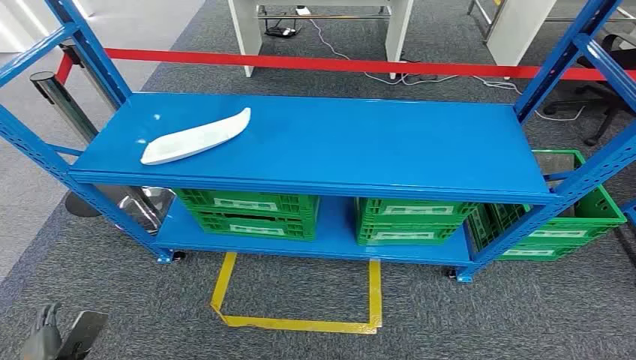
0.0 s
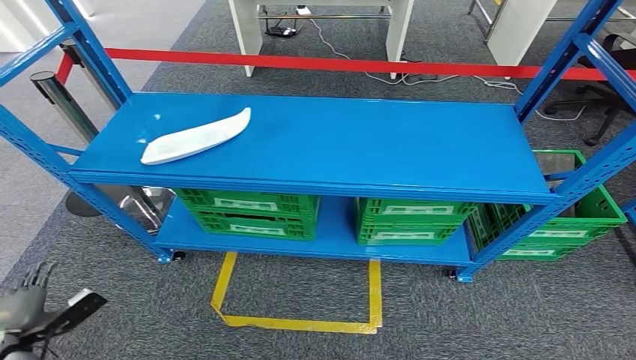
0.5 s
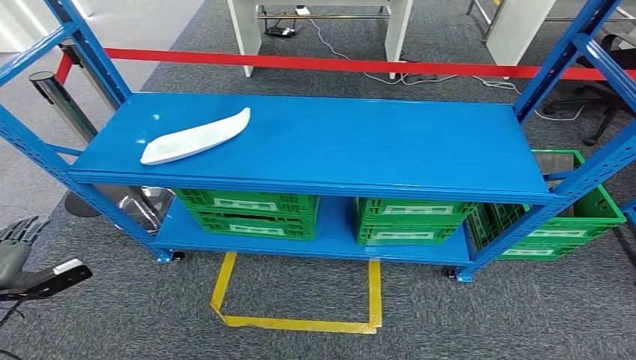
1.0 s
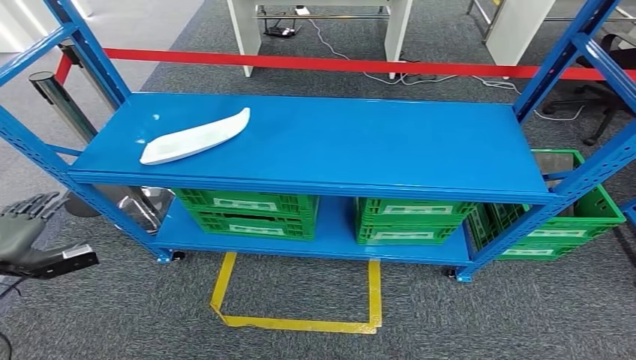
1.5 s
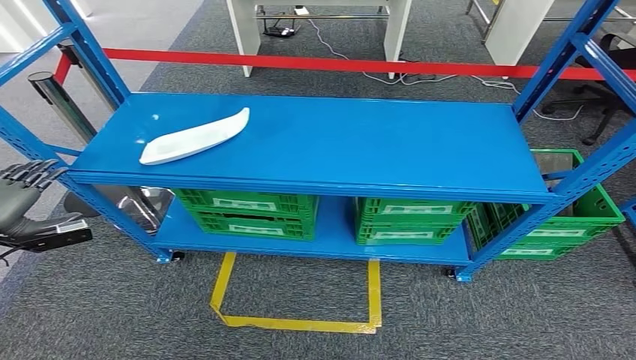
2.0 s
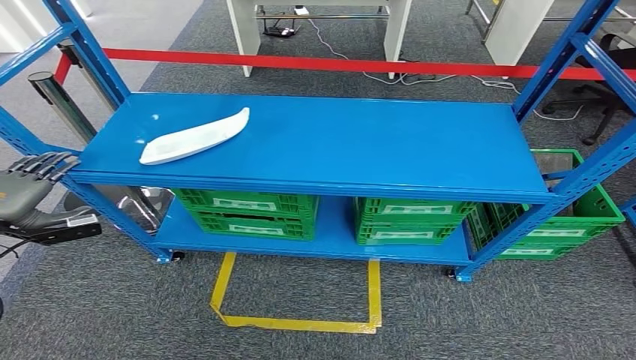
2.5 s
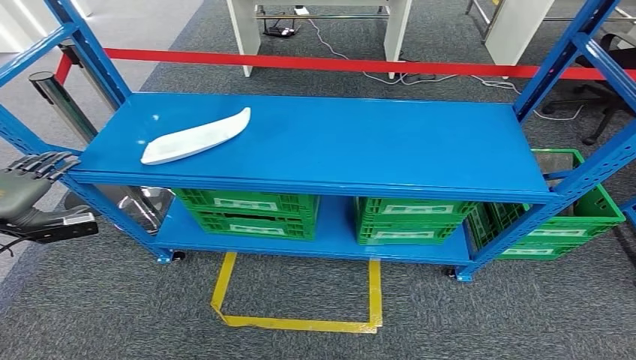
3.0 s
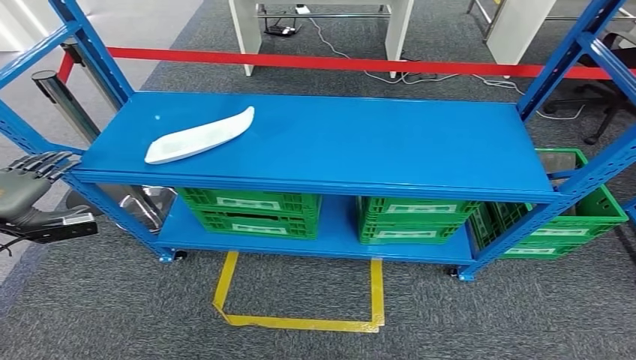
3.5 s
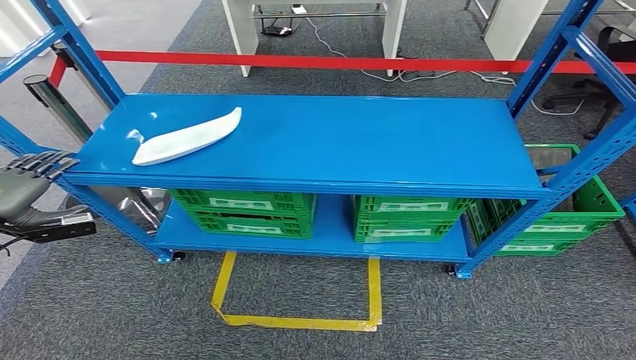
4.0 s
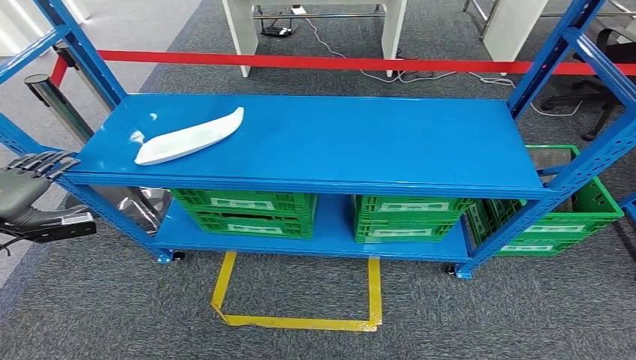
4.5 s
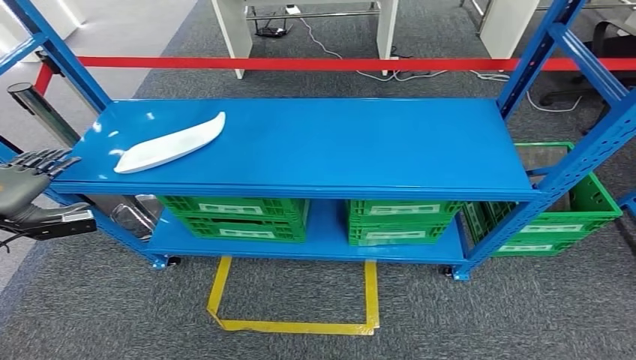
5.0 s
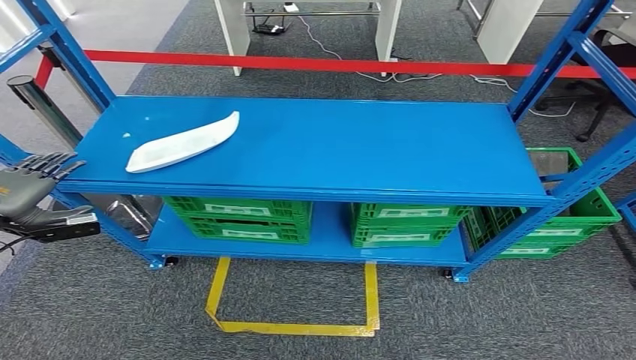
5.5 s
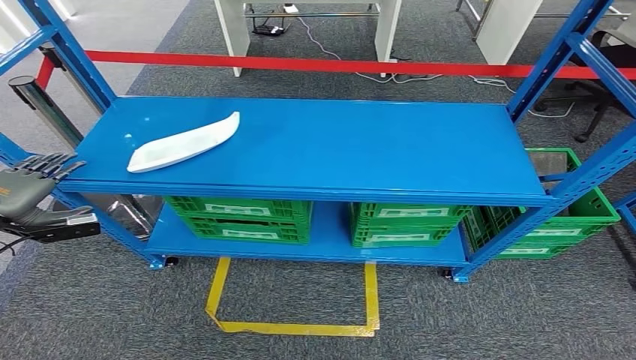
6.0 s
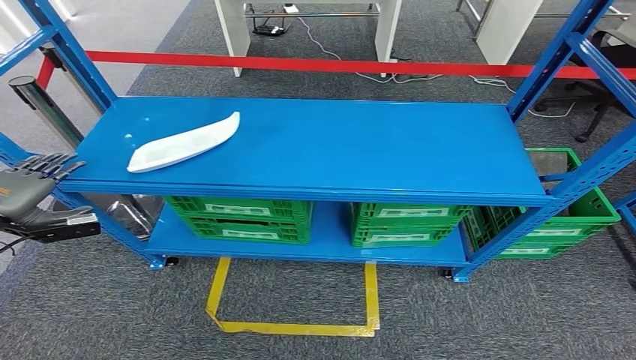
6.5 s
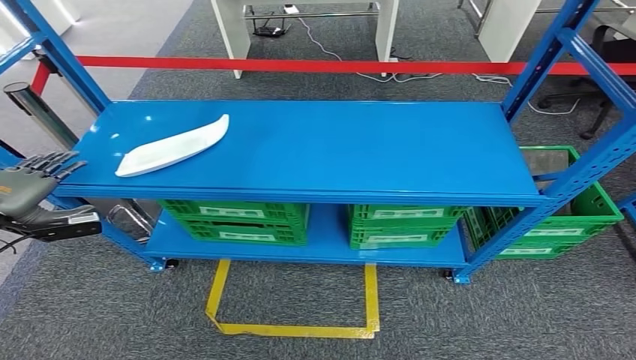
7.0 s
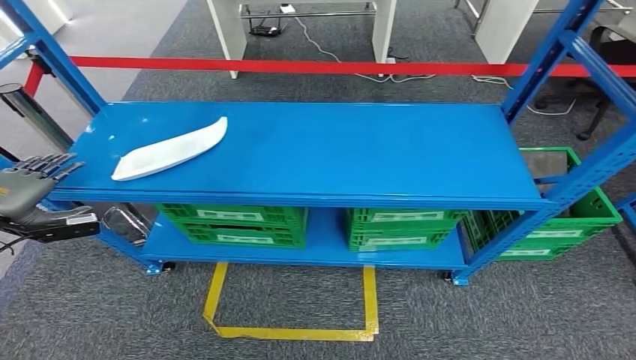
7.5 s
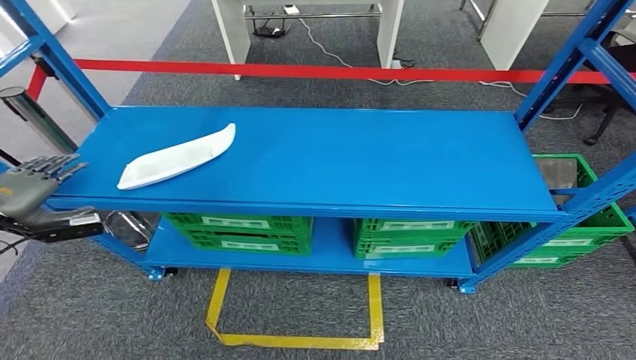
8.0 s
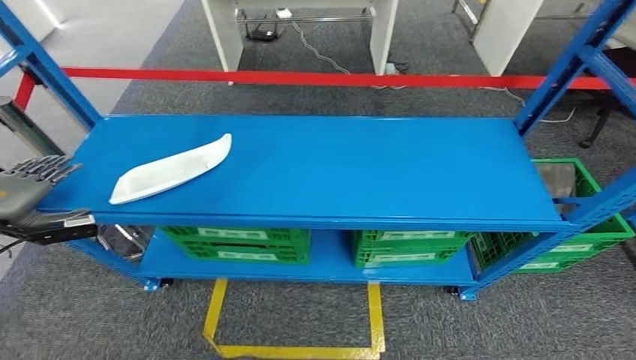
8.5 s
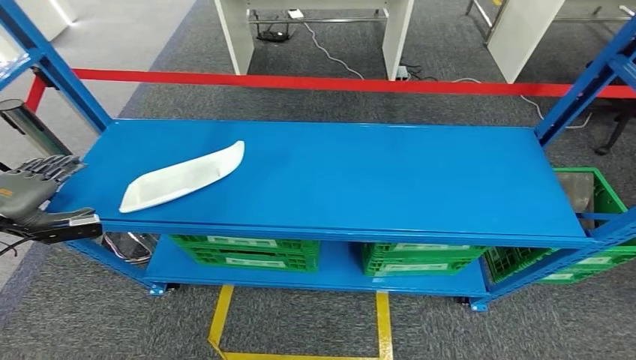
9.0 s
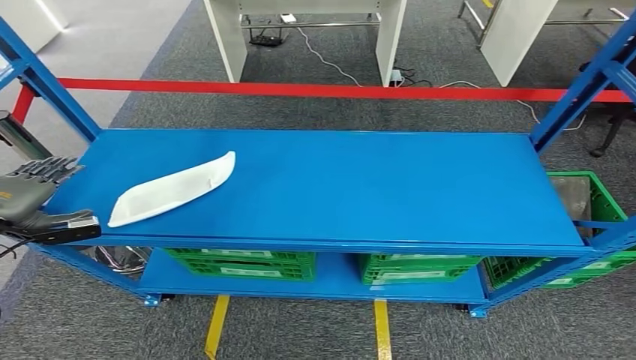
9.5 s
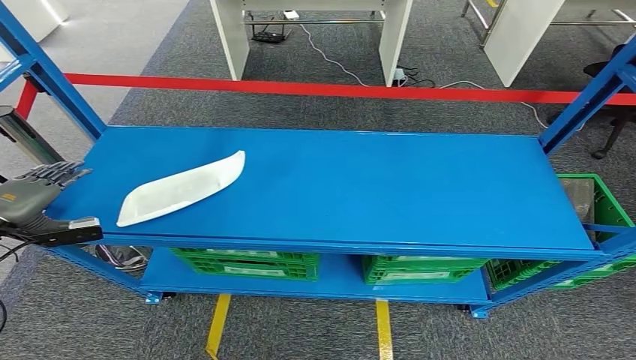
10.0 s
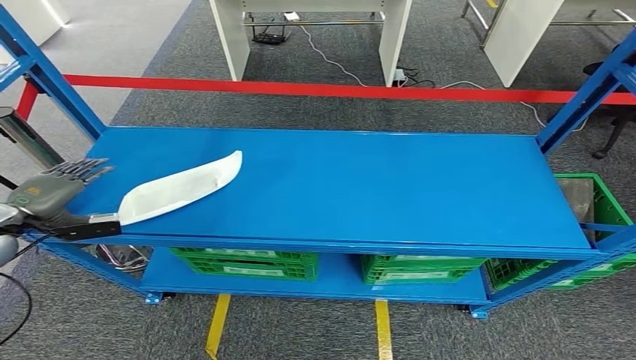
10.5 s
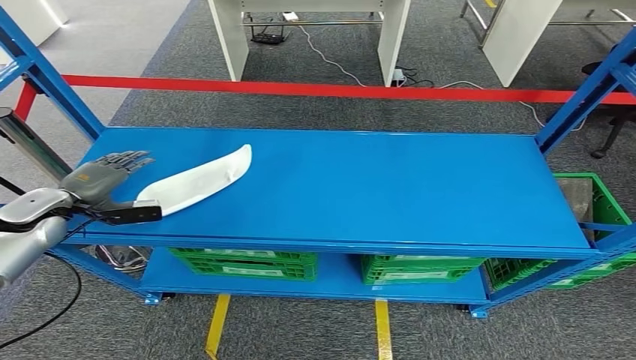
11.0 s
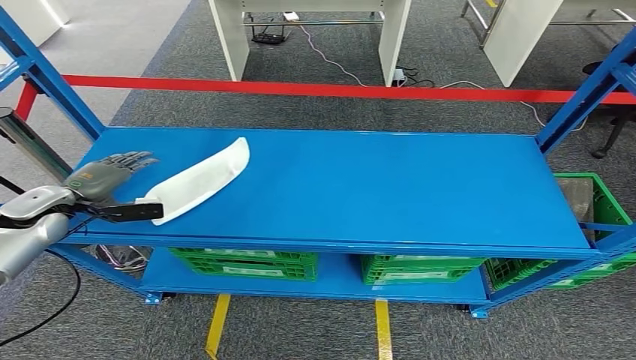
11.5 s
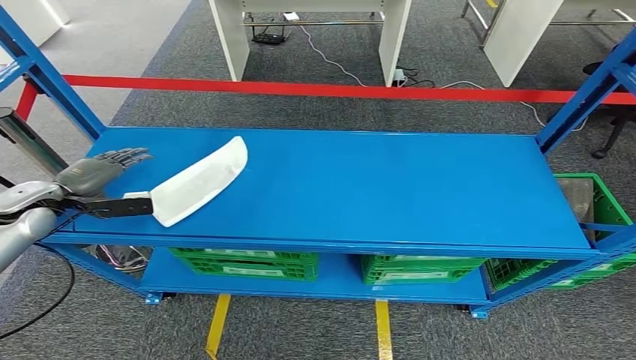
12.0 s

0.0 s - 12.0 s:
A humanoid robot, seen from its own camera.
2.0 s - 4.0 s: The hands make only small movements.
10.0 s - 12.0 s: The left hand is displaced forward and to the right by about 10 cm.

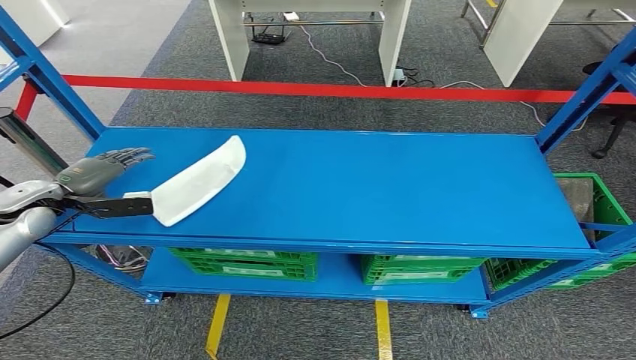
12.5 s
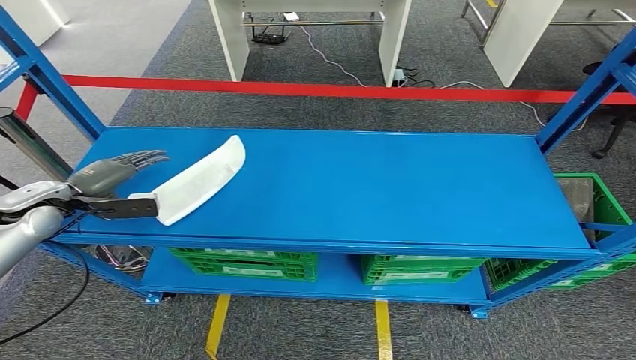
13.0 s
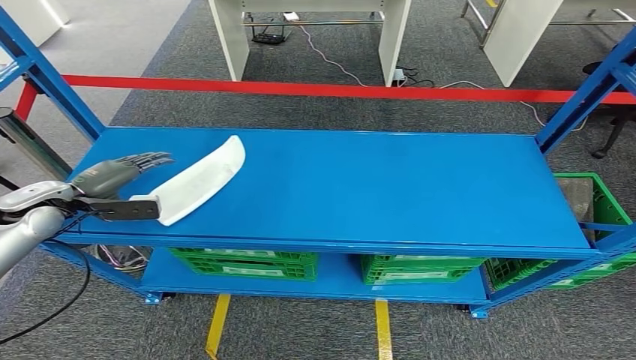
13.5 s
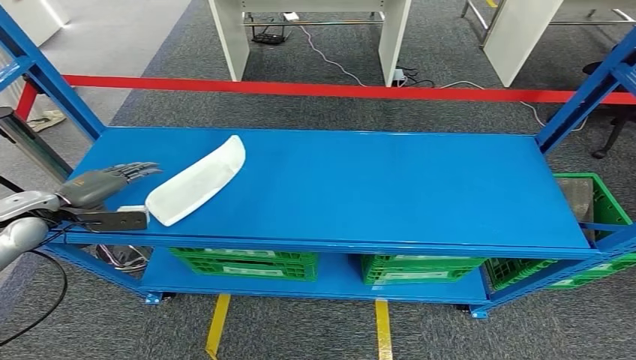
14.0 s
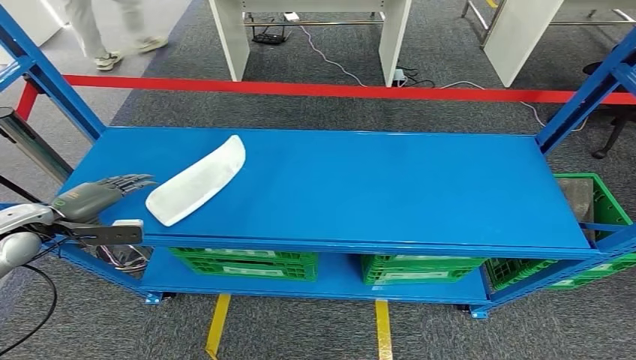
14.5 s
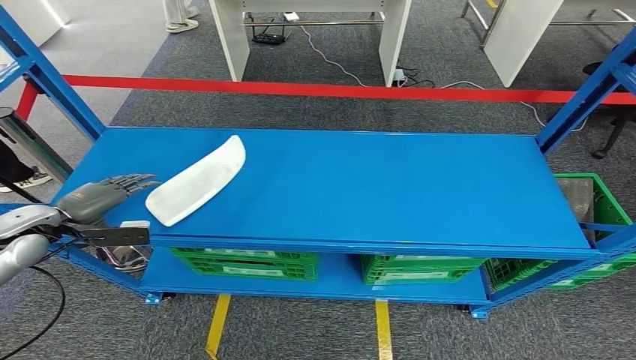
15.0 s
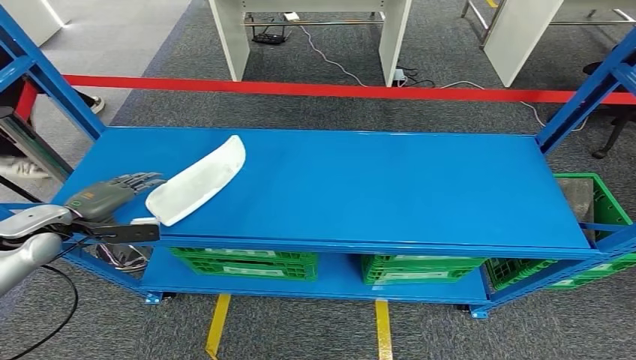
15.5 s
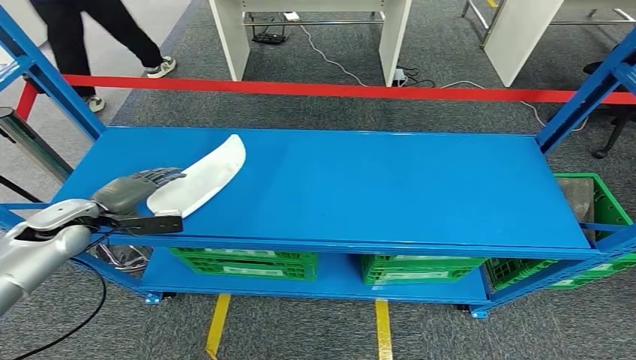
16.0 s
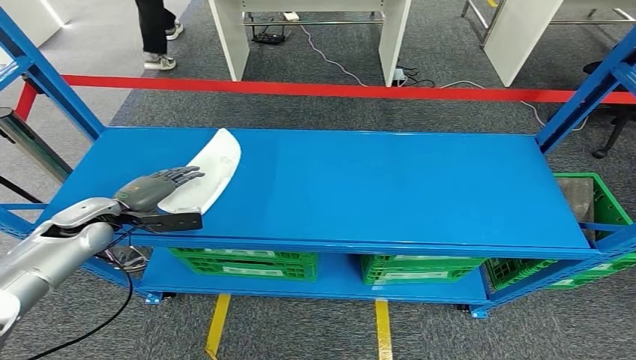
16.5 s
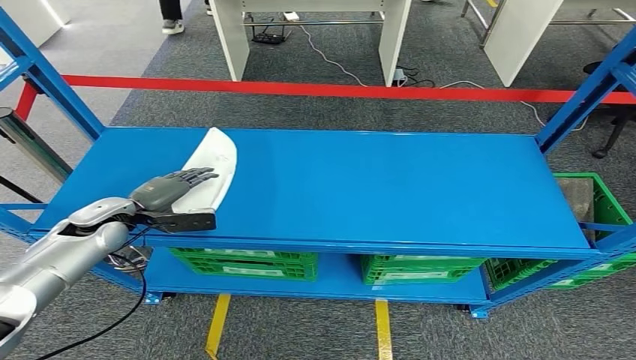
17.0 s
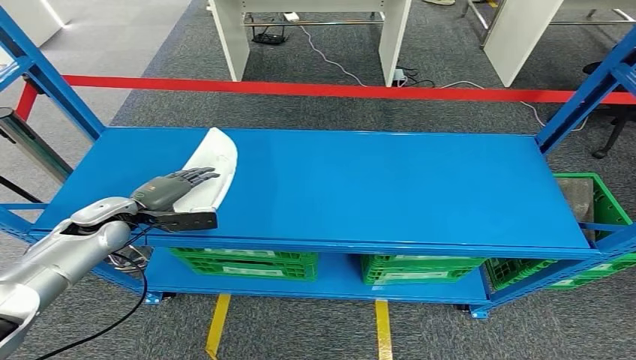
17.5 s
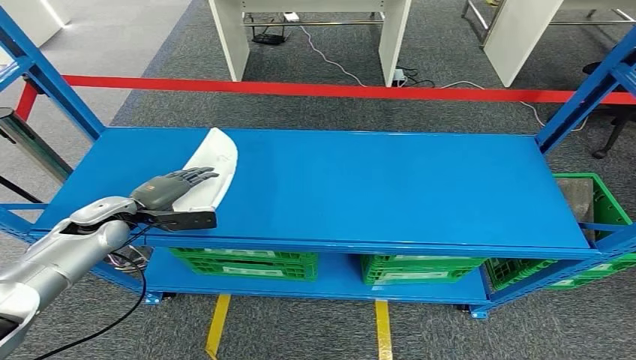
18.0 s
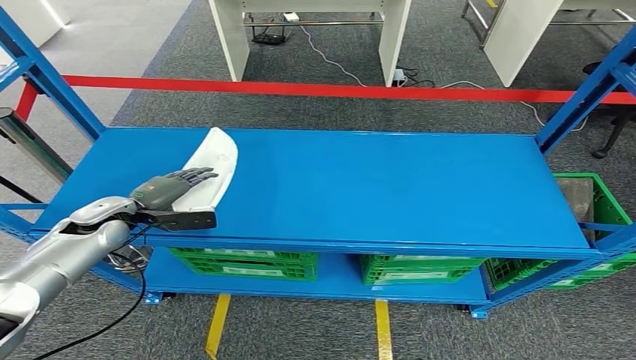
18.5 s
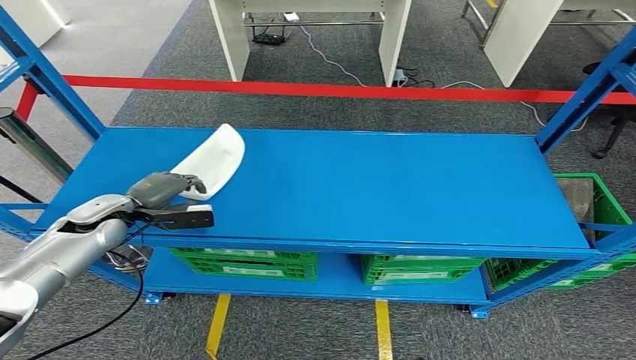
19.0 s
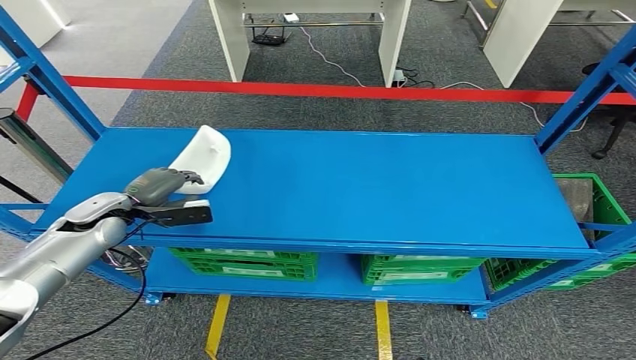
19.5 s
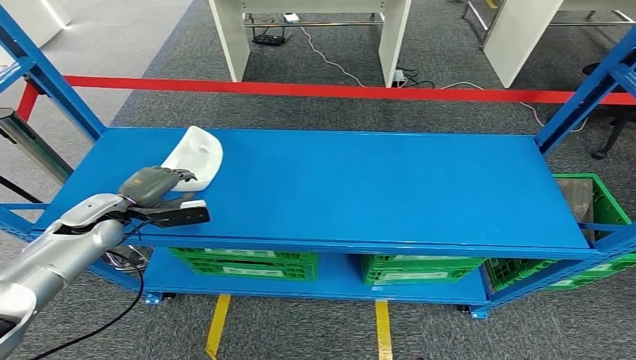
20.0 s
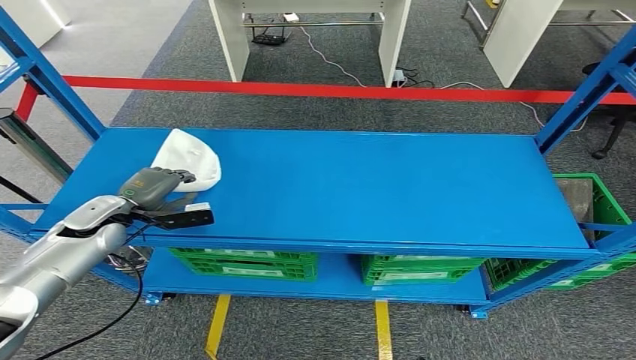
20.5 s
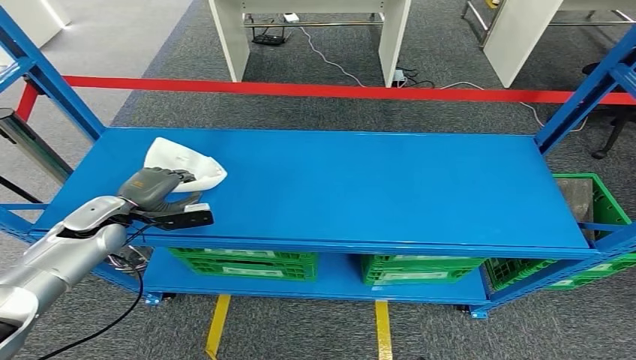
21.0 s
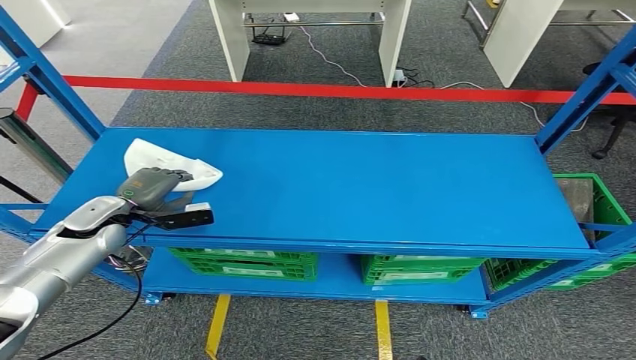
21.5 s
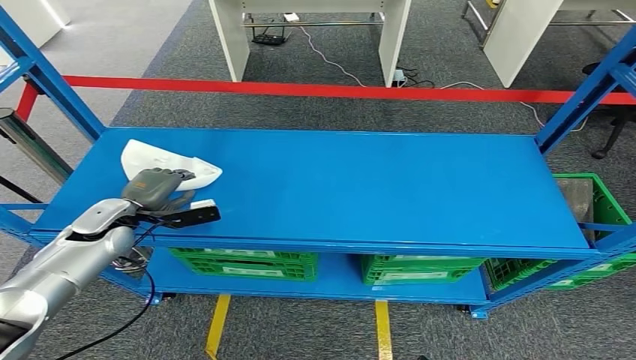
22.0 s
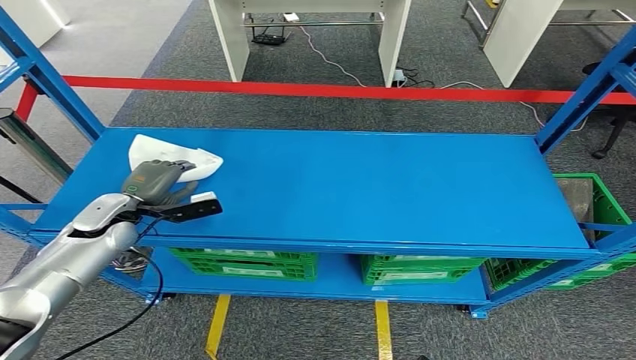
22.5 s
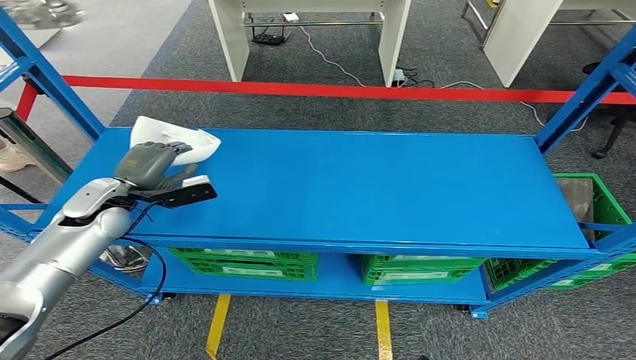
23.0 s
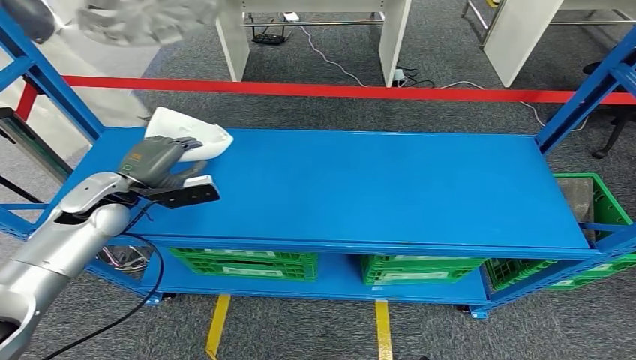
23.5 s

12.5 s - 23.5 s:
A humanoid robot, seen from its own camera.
12.5 s - 14.5 s: The left hand moves backward, approximately 5 cm.
14.5 s - 16.0 s: The left hand ends up roughly 5 cm from where it was.
16.0 s - 18.0 s: The left hand ends up approximately 5 cm from where it was.
18.0 s - 21.5 s: The hands make only small movements.
21.5 s - 23.5 s: The left hand heads upward, covering about 5 cm.
